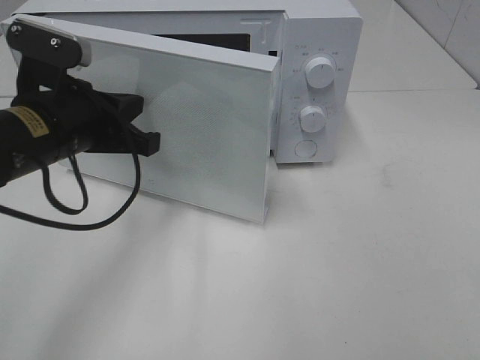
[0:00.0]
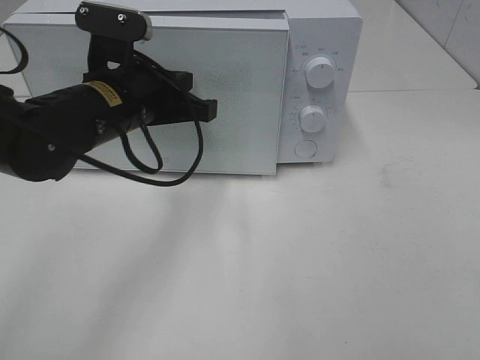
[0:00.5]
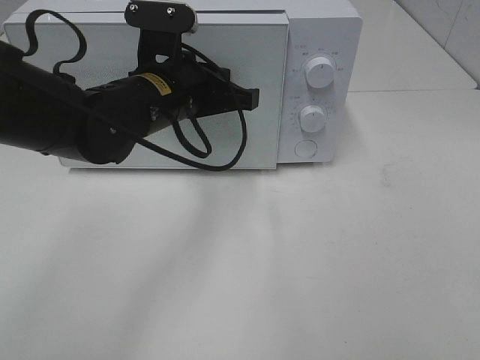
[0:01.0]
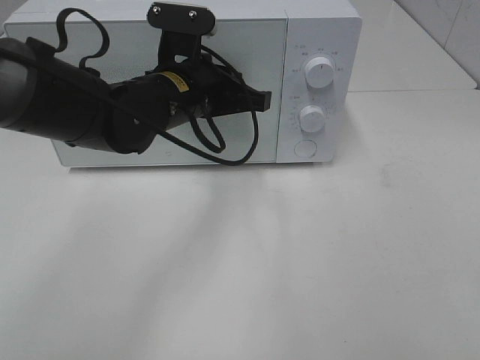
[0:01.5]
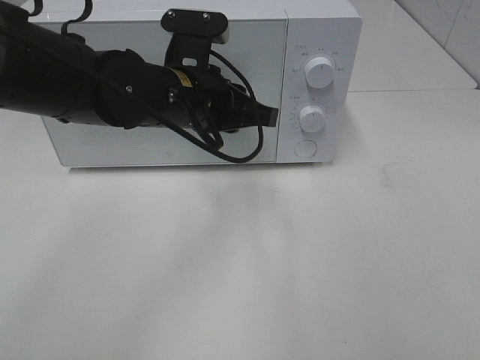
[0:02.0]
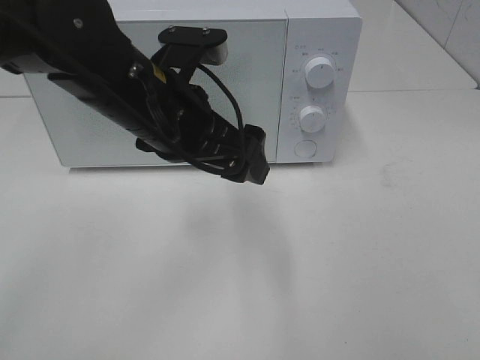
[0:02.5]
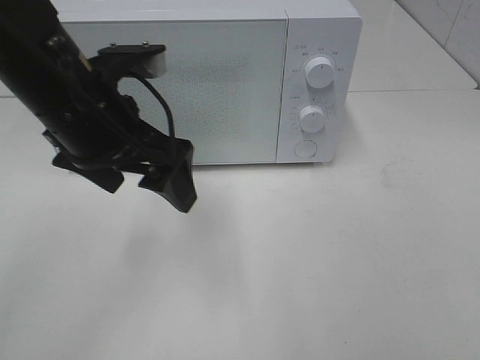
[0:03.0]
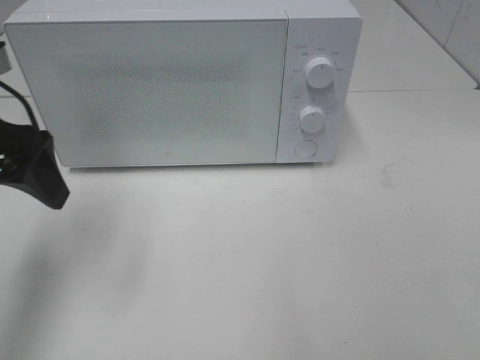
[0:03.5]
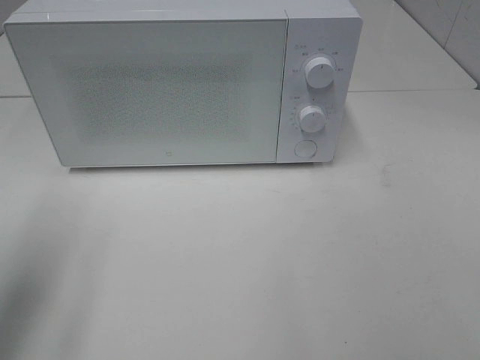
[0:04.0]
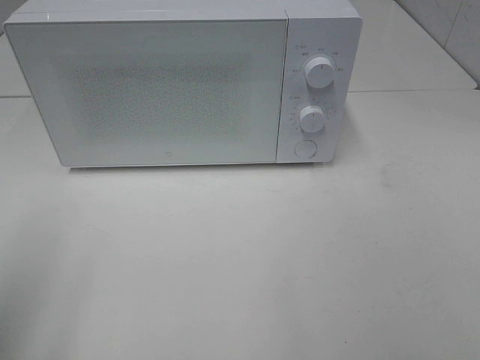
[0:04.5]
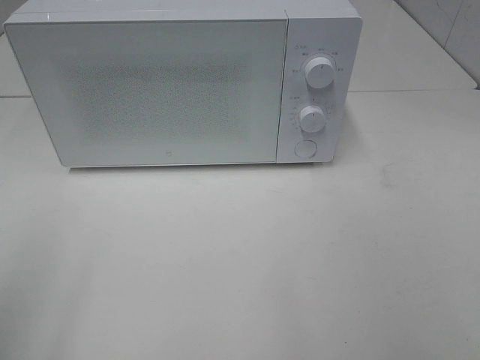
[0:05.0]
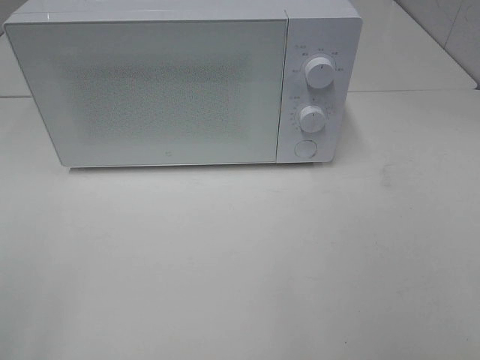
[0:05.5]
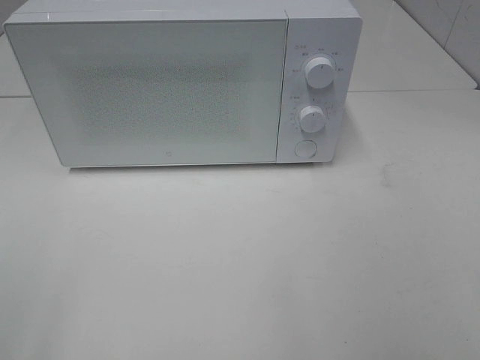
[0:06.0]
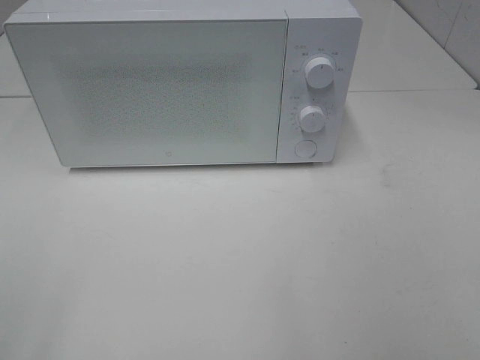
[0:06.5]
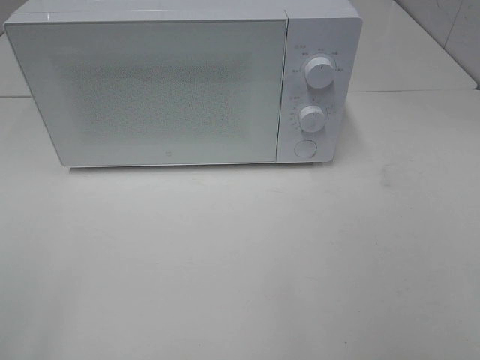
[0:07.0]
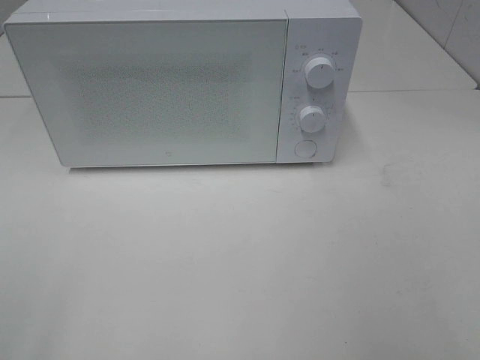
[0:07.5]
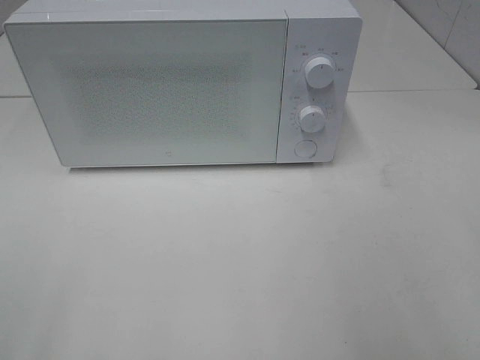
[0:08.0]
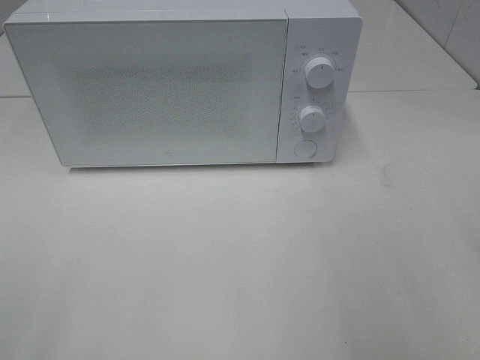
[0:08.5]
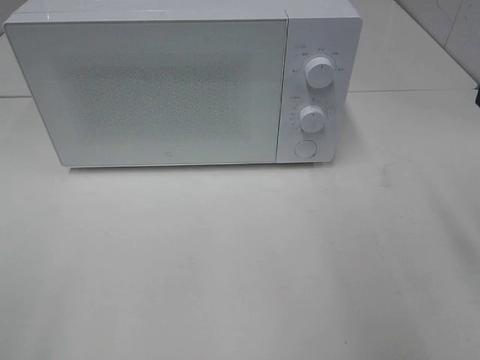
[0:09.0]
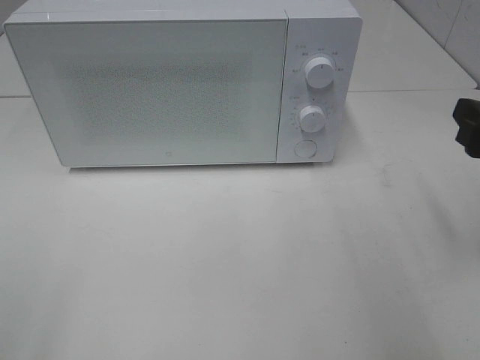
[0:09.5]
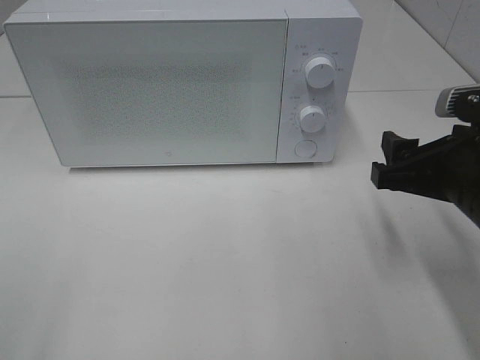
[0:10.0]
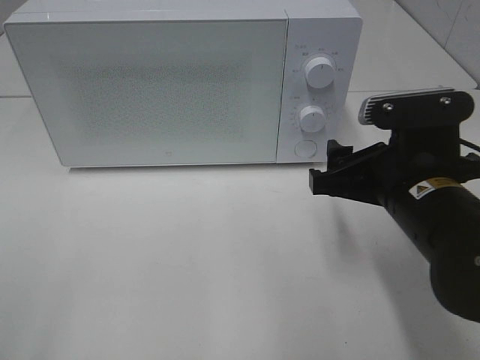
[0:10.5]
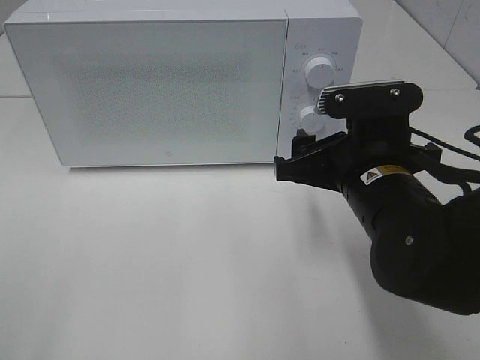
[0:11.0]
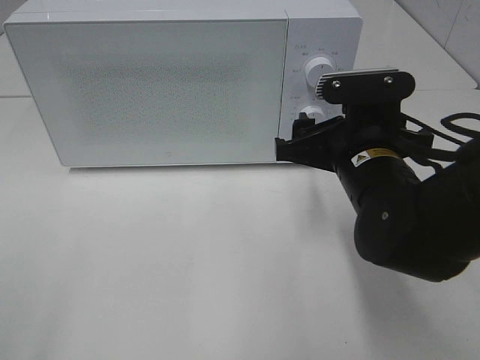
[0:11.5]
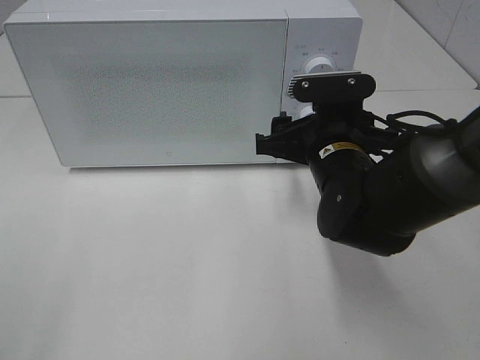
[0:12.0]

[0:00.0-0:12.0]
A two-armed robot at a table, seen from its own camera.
Task of the whole recording: Heat the burger.
0:00.0 to 0:02.0: The left gripper goes some 10 cm to the right.
0:02.0 to 0:04.0: The left gripper goes about 30 cm to the left and backward, and opens its fingers.
0:04.0 to 0:06.0: The left gripper moves backward, some 15 cm.
0:08.0 to 0:10.0: The right gripper shifts some 20 cm downward, forward and to the left.
0:10.0 to 0:12.0: The right gripper goes approximately 15 cm to the left and forward.

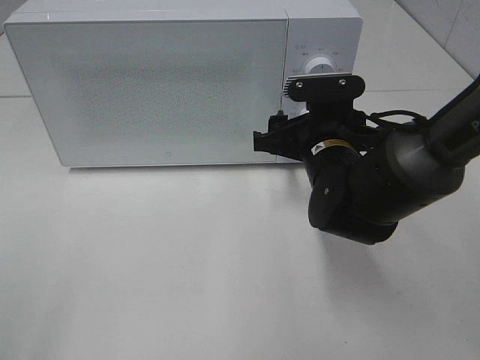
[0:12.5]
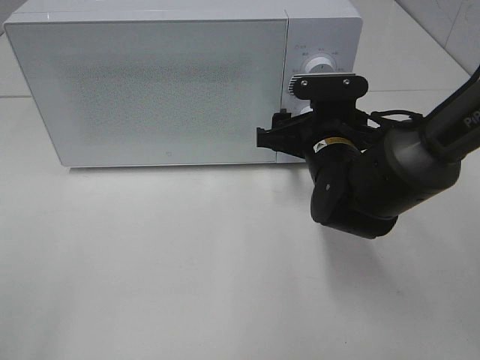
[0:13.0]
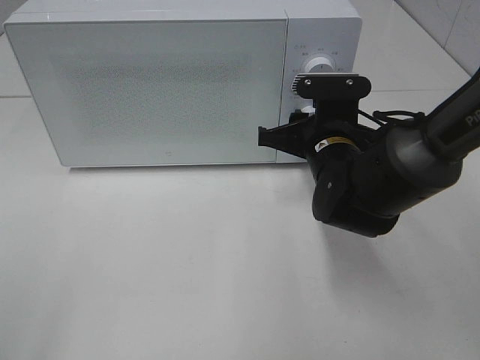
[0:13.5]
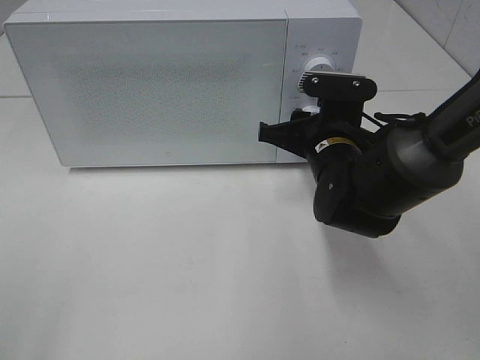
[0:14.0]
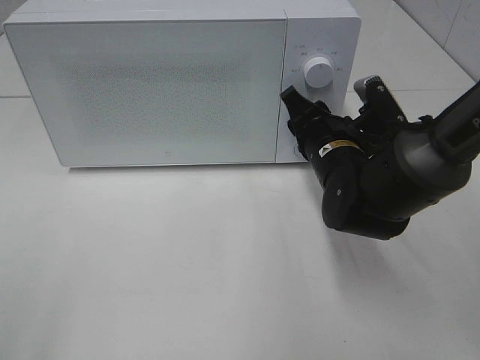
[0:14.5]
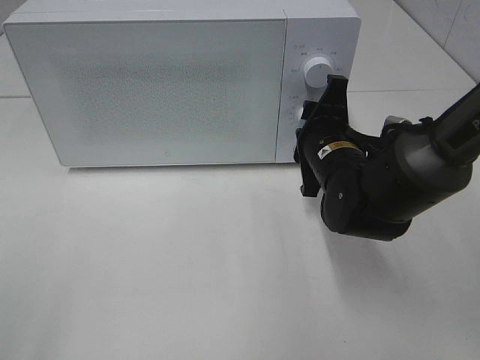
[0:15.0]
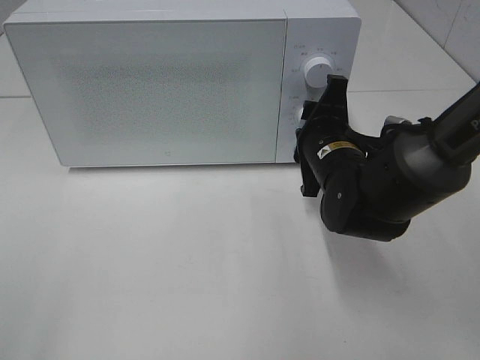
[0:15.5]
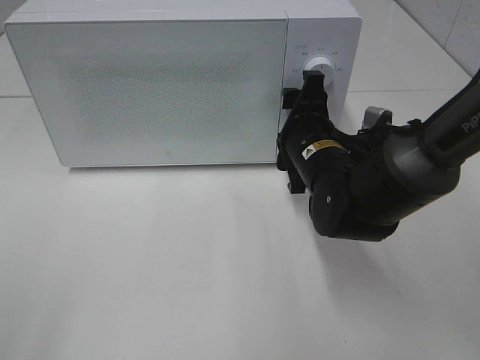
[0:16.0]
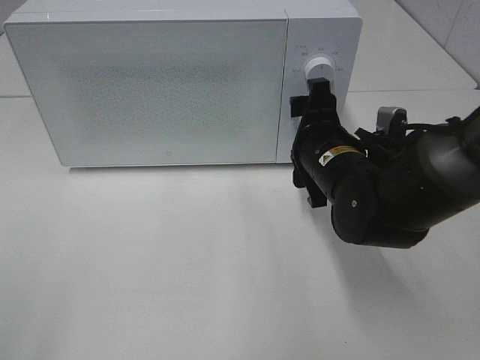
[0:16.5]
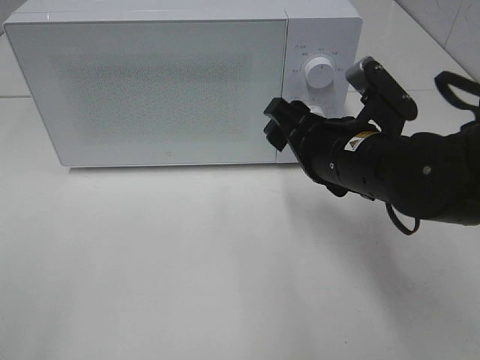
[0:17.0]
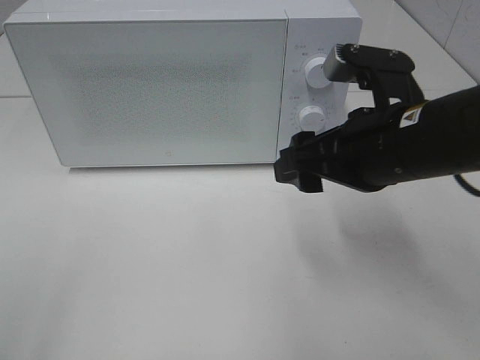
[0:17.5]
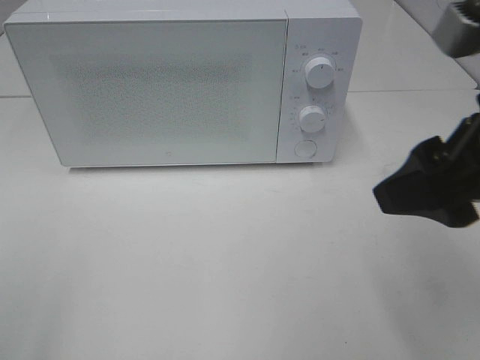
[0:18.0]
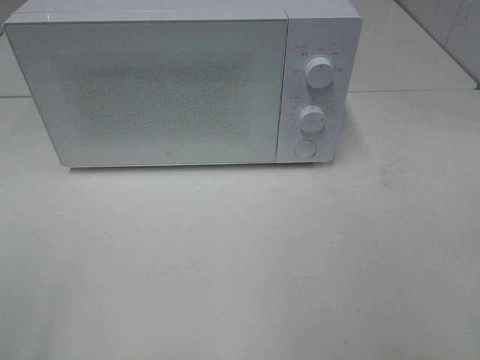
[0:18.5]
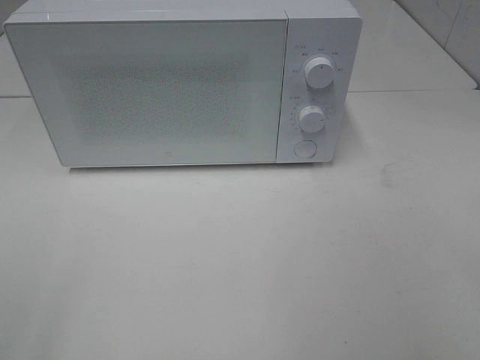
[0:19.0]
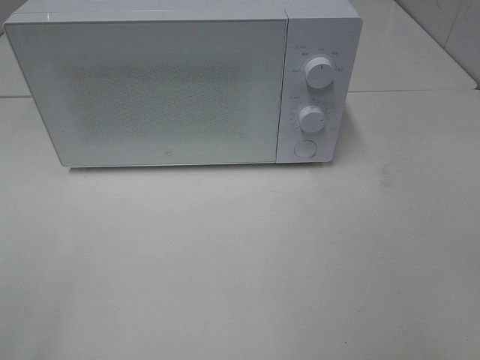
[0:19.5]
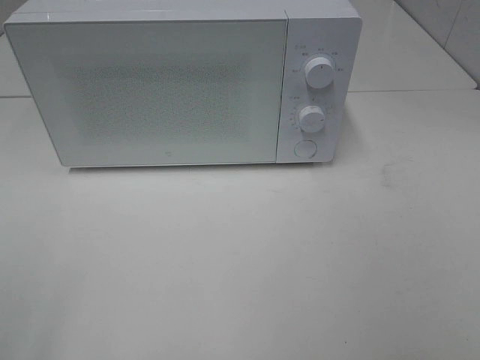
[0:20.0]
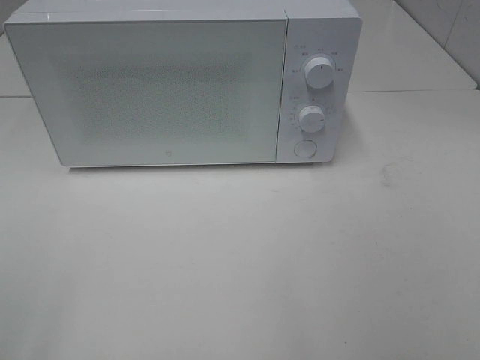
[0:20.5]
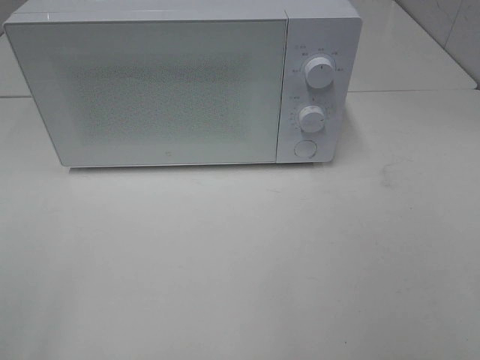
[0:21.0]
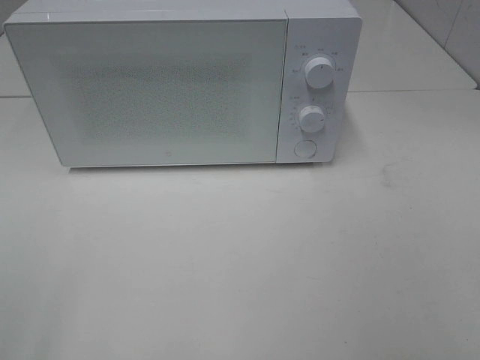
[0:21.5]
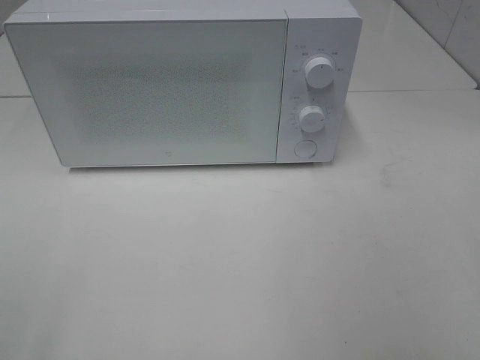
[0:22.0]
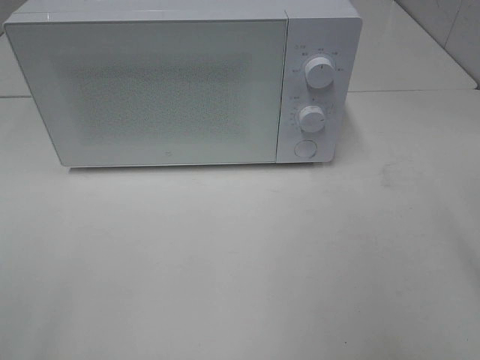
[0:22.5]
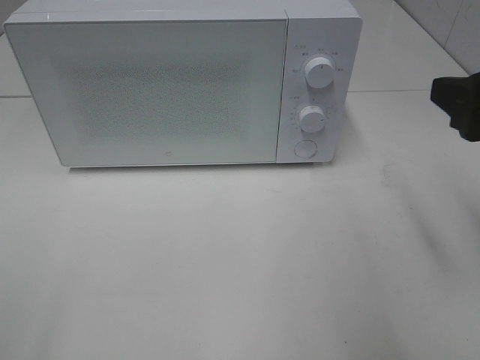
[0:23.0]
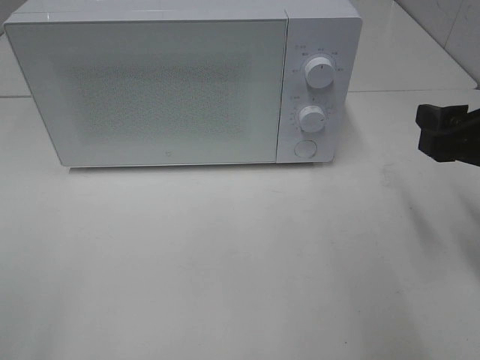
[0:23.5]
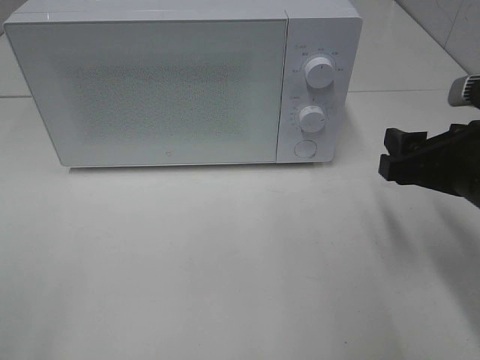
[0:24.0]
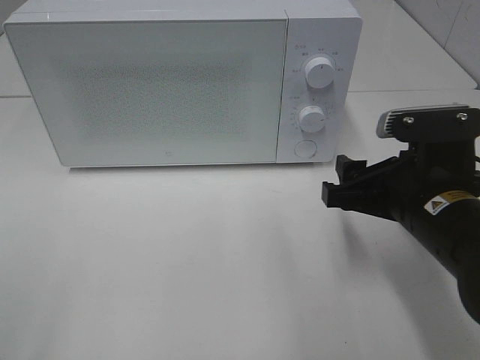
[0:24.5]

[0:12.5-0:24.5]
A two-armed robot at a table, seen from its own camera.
Task of the whole recording: Heat the burger.
Step, 0:12.5 to 0:15.5: Right hand: twist timer button.
0:12.5 to 0:14.5: The right gripper closes.
0:14.5 to 0:16.5: The right gripper opens.
0:16.5 to 0:18.5: The right gripper shifts approximately 35 cm backward, upward and to the right.
0:22.5 to 0:24.5: The right gripper travels downward, to the left and forward by approximately 20 cm.

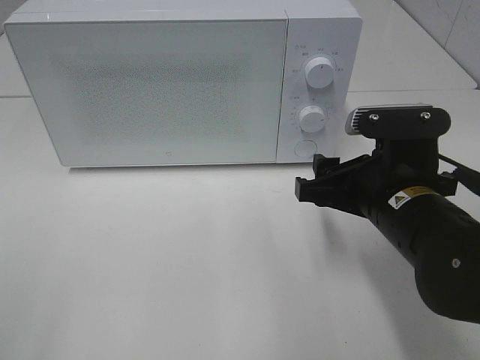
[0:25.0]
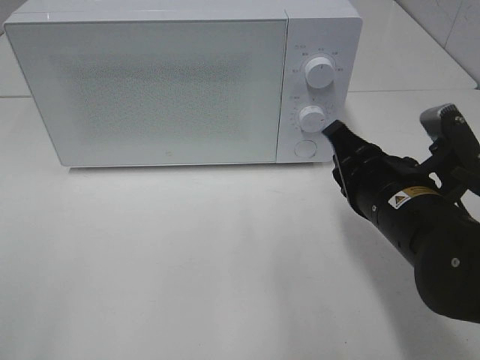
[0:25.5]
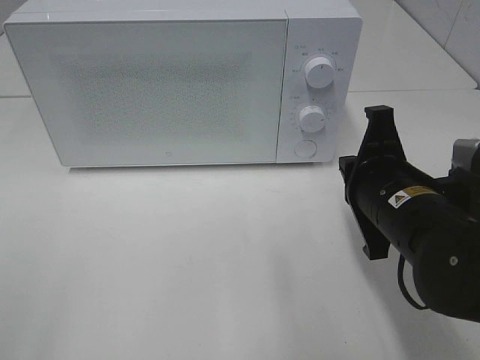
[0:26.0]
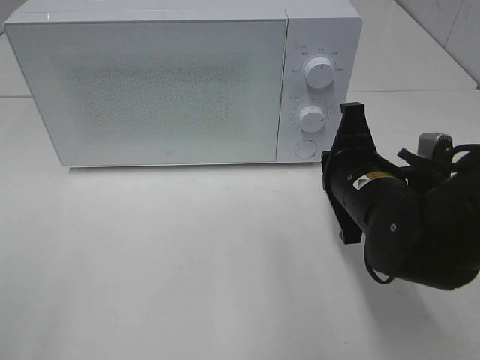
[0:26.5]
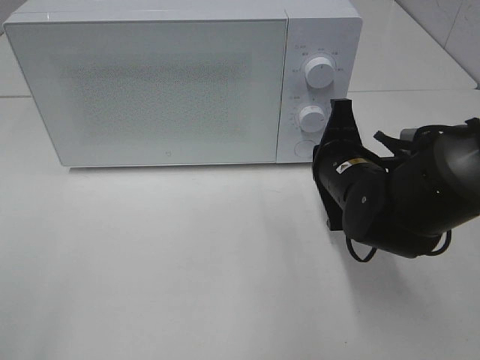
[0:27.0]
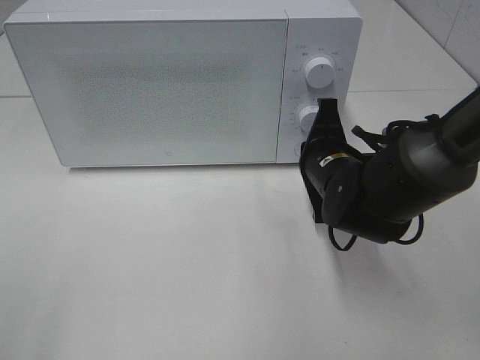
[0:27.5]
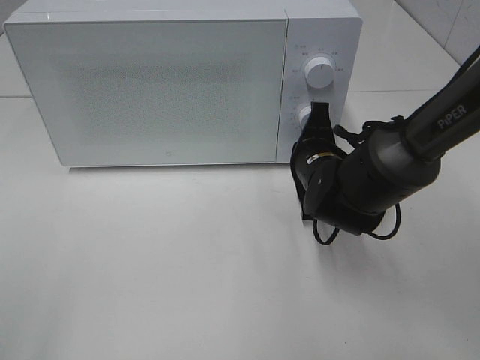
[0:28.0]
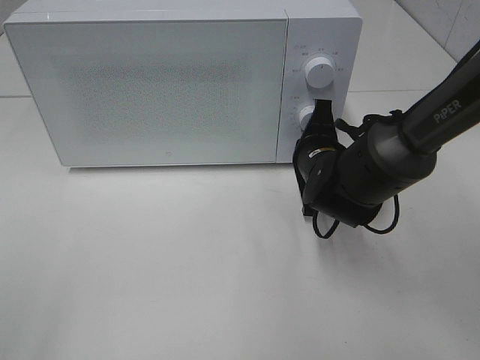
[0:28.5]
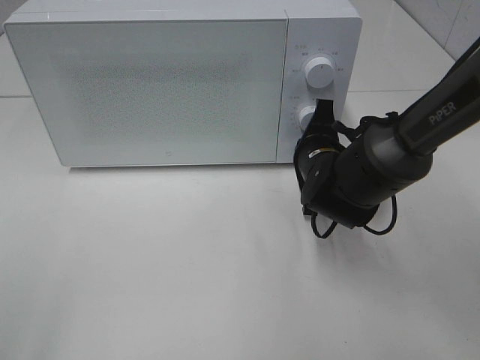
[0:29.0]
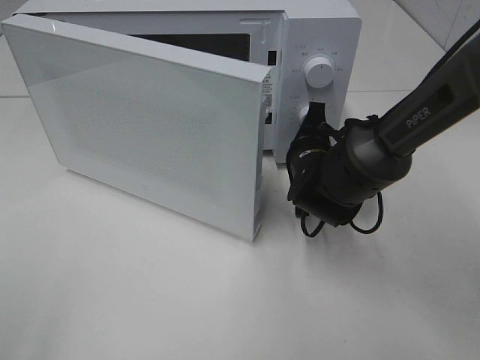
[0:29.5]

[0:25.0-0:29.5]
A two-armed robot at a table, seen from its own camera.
Task of the whole recording: Heat the burger.
0:25.0 to 0:27.0: The right gripper heads forward, covering approximately 5 cm, and closes up.
0:27.0 to 0:29.5: The right gripper shifts about 5 cm forward.
